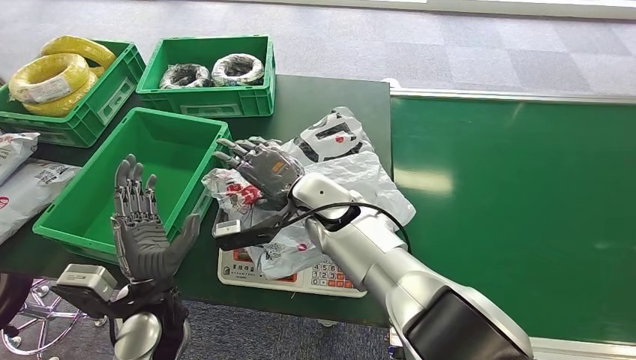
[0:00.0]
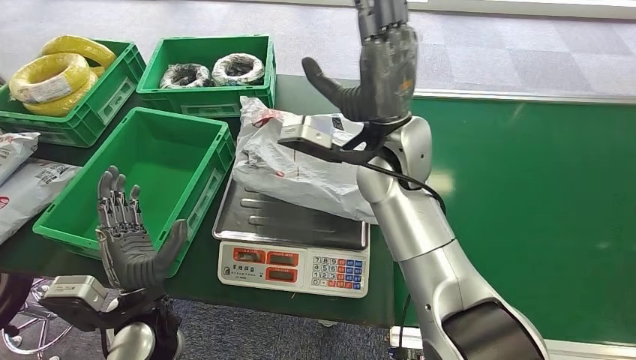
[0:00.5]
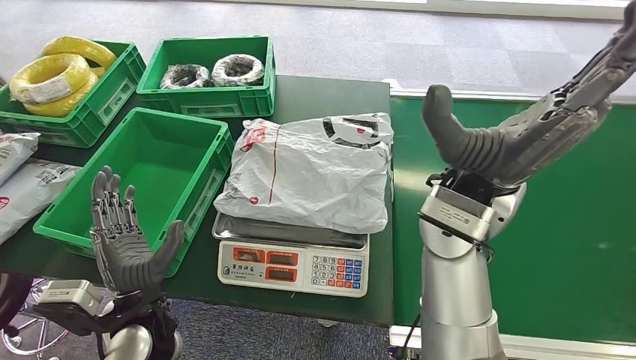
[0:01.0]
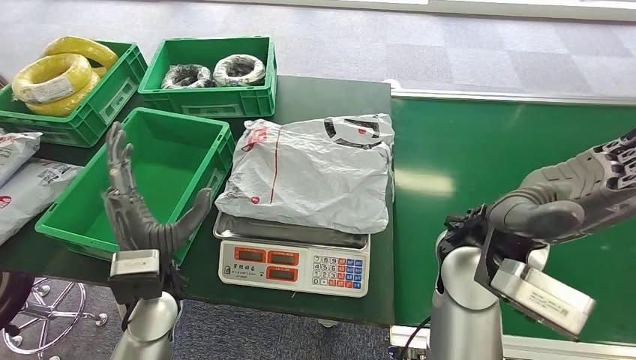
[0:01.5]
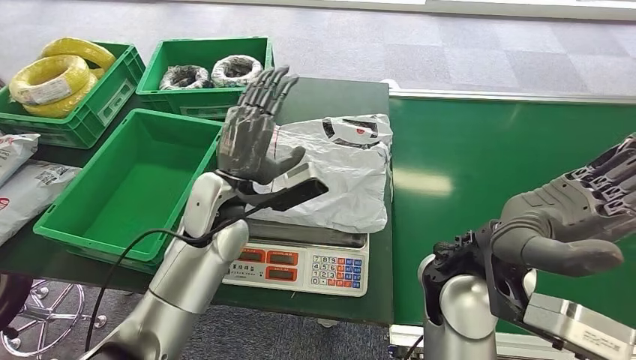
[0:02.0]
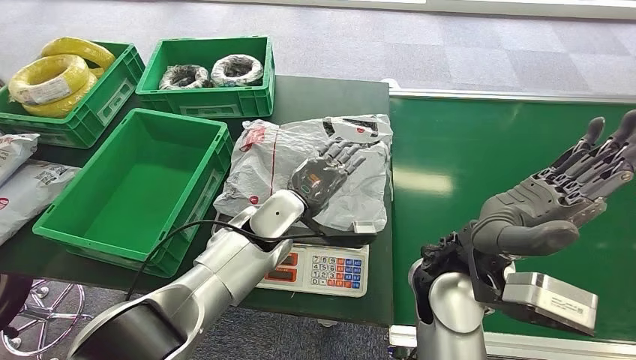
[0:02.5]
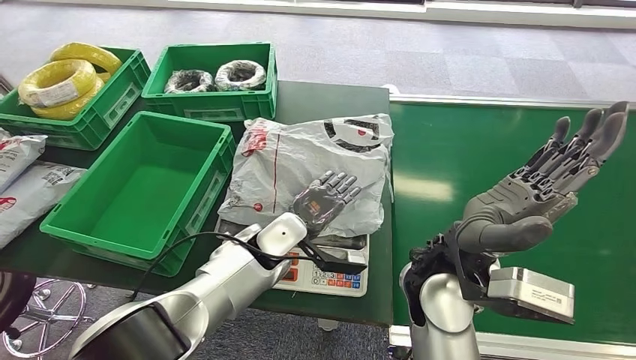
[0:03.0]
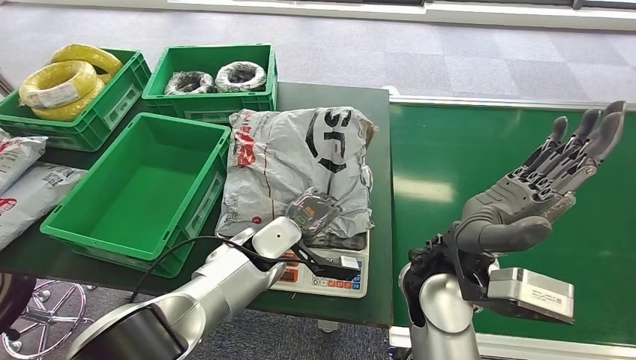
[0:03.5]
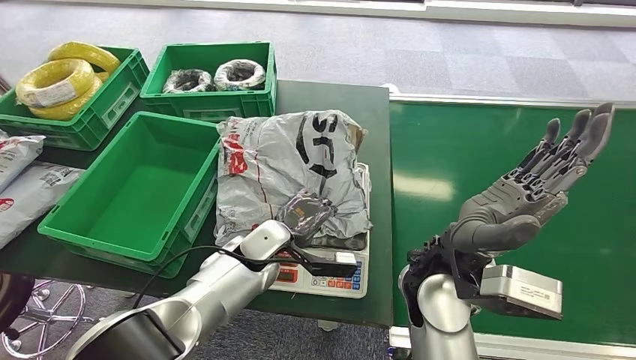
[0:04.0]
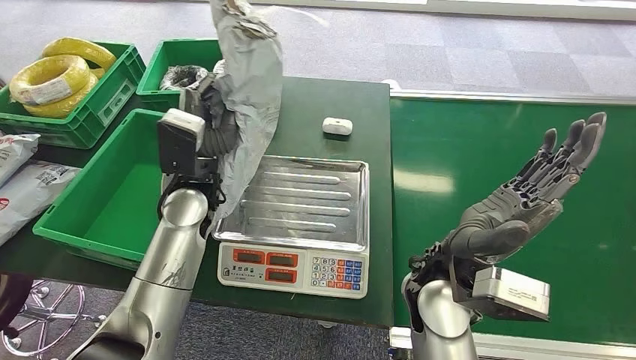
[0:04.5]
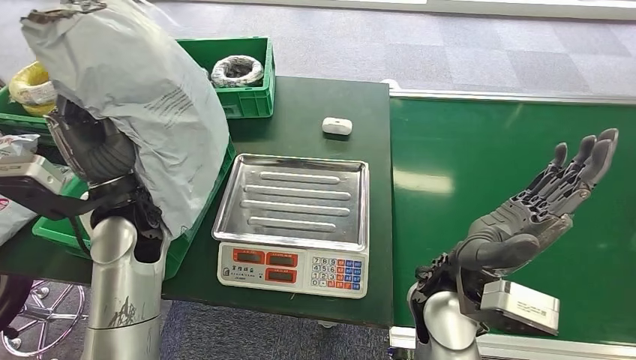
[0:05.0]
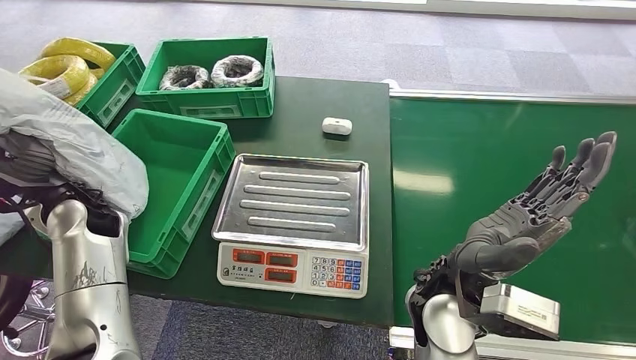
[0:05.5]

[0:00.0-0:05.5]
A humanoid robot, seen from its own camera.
Step, 0:01.0 to 0:04.5: Pick up the package from the inbound machine.
Step, 0:05.0 to 0:05.5: Place the package into the parcel locker.

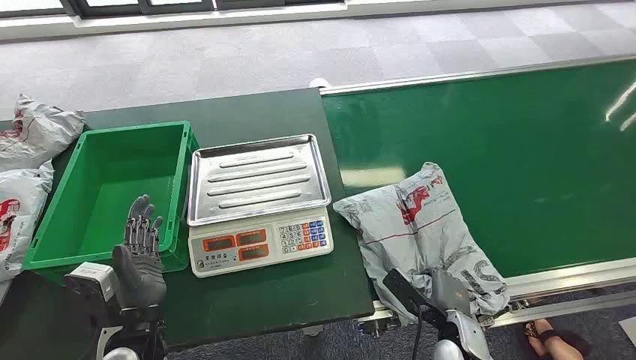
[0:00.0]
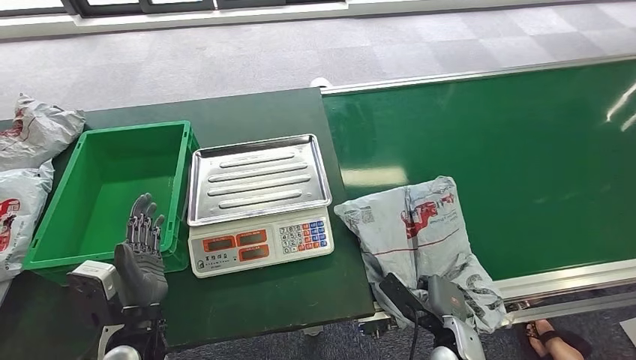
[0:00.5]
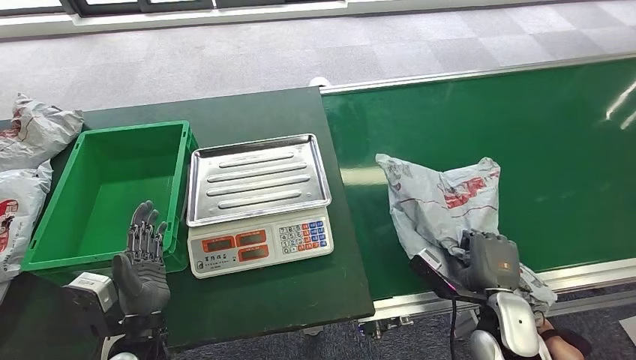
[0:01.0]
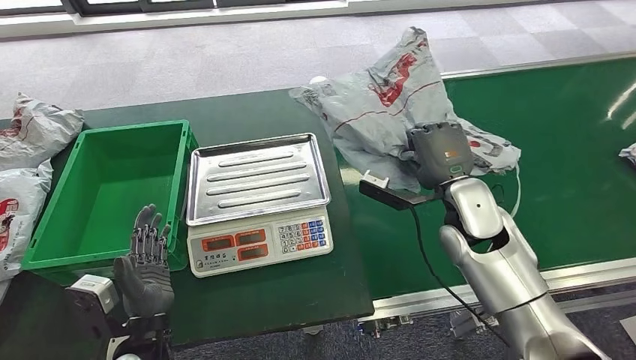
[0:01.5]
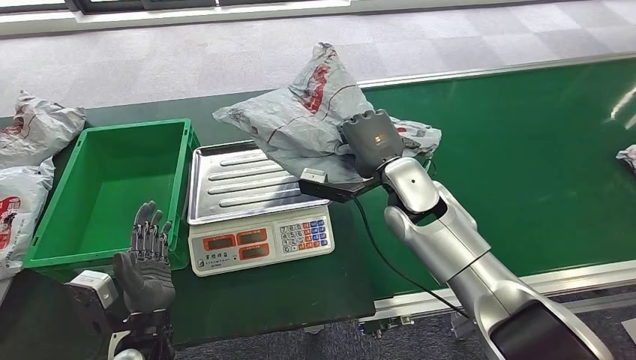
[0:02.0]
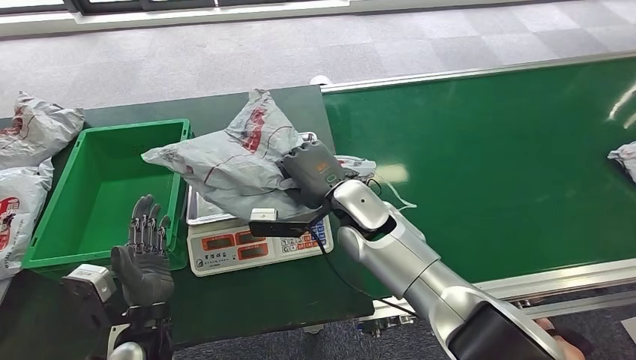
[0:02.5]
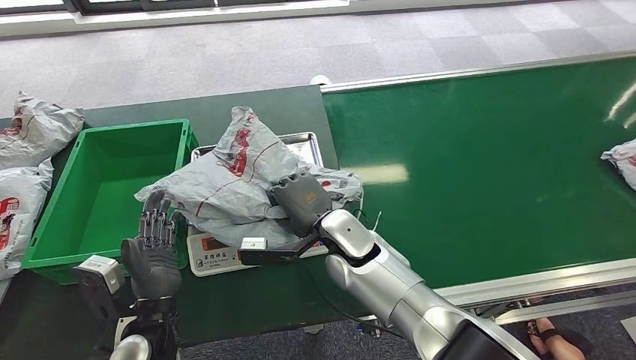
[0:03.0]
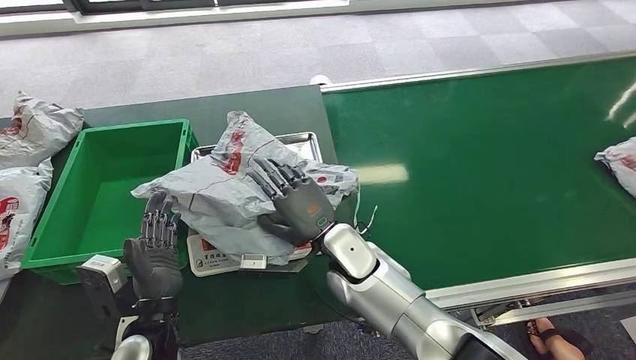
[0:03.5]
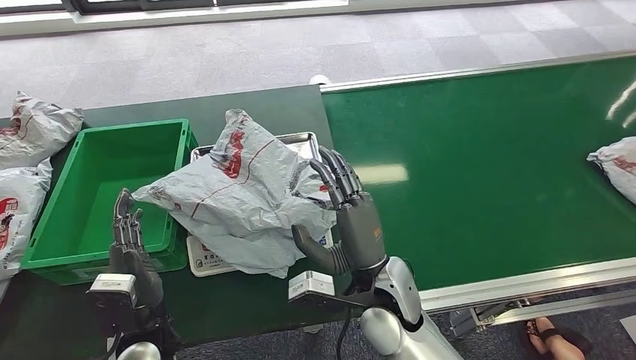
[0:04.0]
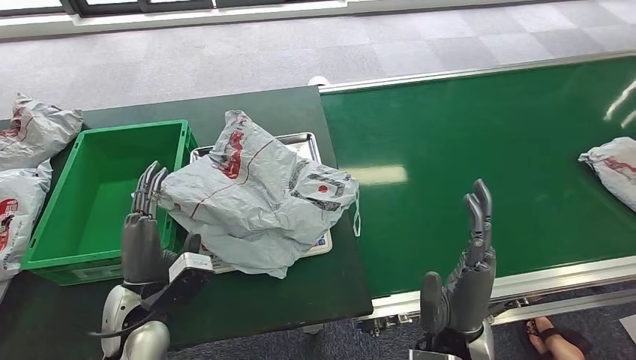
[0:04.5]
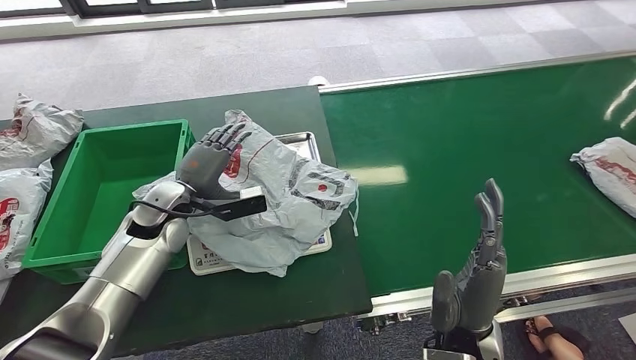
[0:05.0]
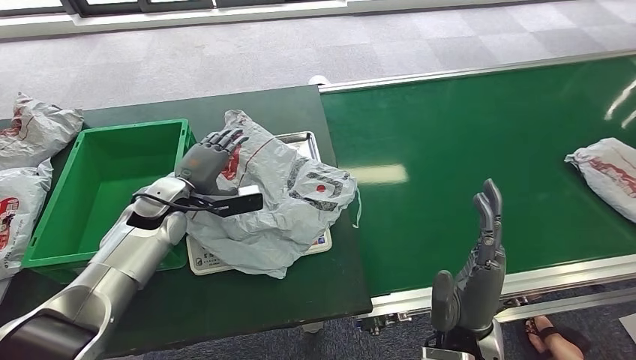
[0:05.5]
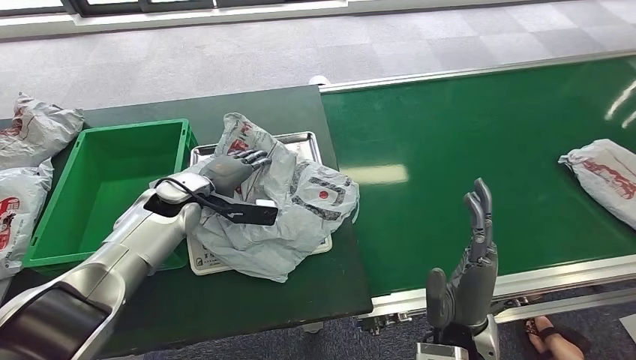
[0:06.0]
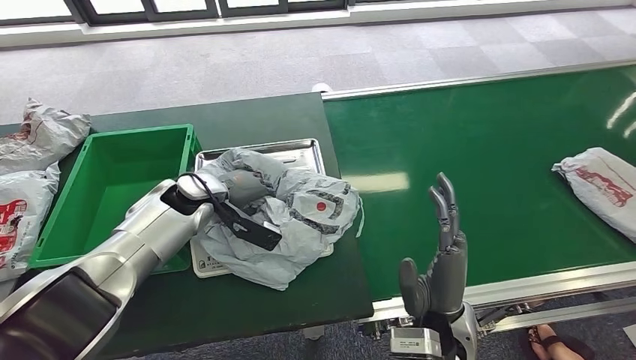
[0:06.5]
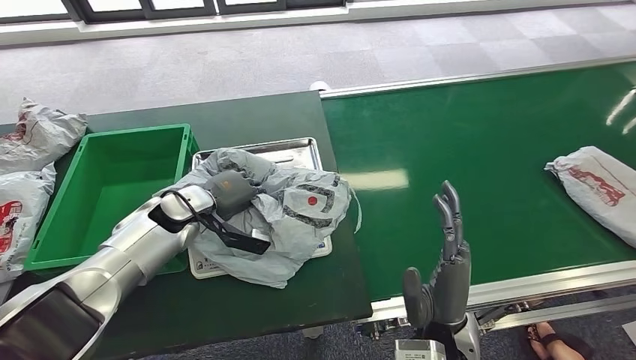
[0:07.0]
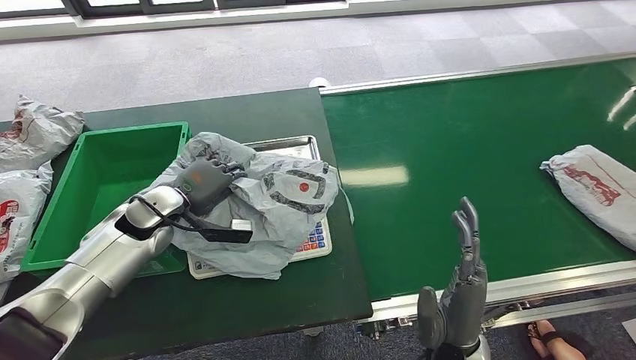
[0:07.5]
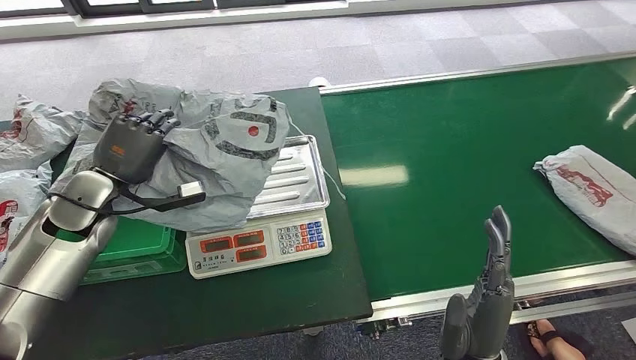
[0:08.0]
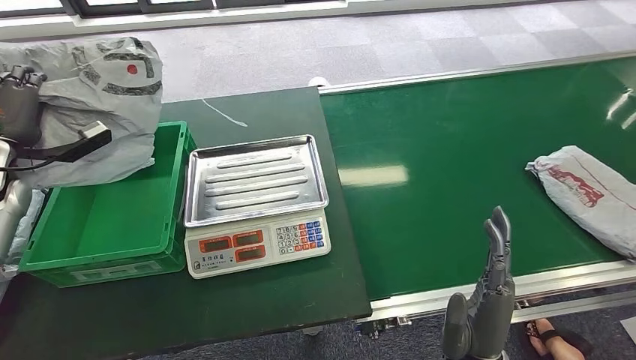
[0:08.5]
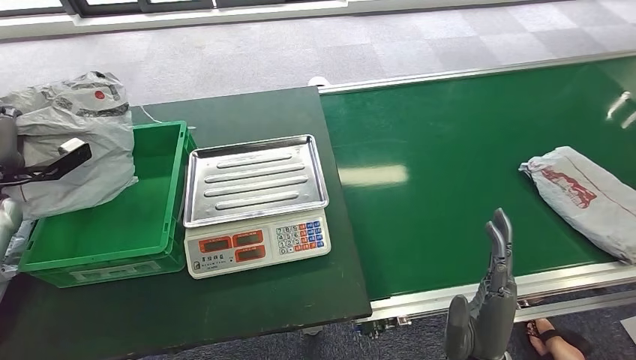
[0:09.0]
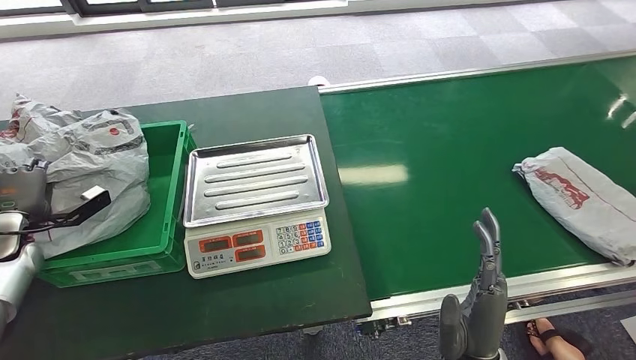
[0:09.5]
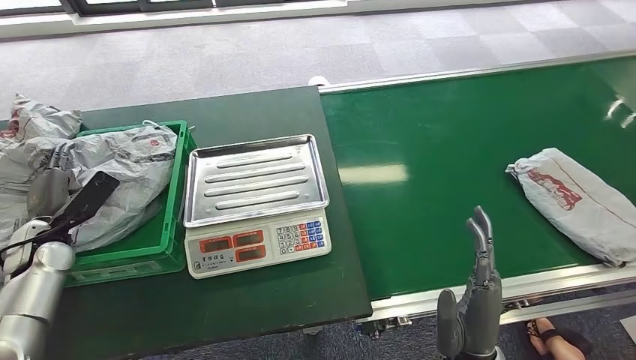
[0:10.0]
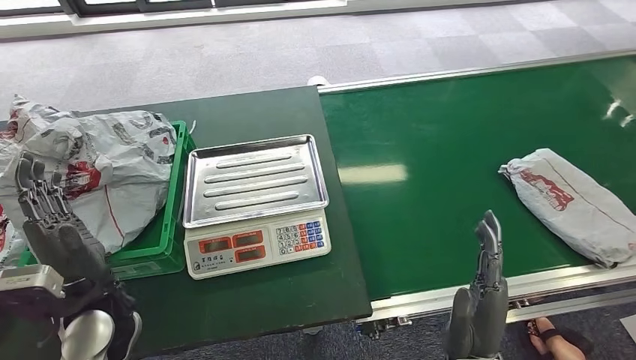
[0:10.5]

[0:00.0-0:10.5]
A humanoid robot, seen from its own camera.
Step, 0:00.0 to 0:01.5: Pick up the package from the conveyor belt.
Step, 0:02.0 to 0:04.0: Place the package onto the inbound machine.
Step, 0:04.5 to 0:08.5: Pick up the package from the inbound machine.
Step, 0:09.0 to 0:10.5: Place the package into the parcel locker.
